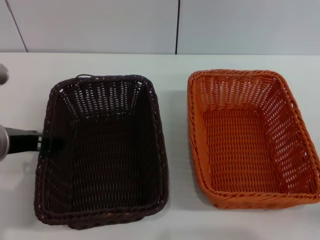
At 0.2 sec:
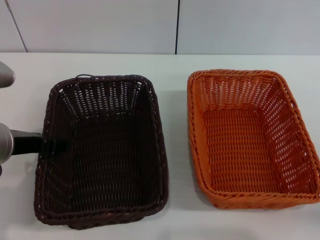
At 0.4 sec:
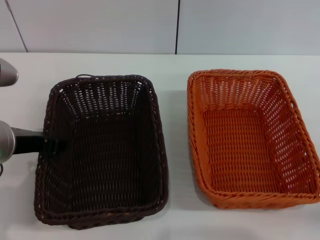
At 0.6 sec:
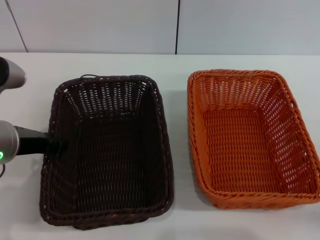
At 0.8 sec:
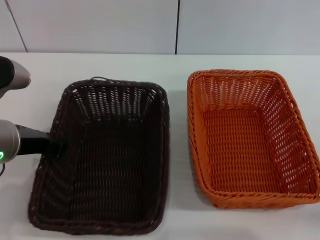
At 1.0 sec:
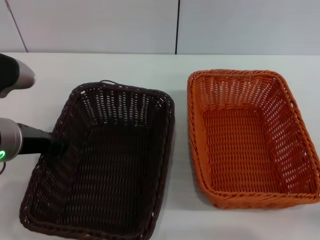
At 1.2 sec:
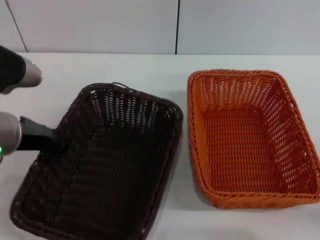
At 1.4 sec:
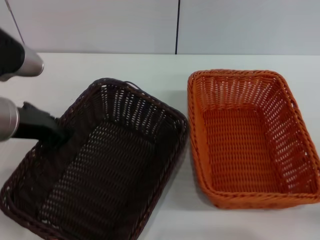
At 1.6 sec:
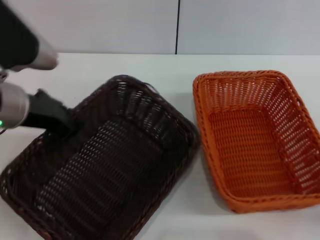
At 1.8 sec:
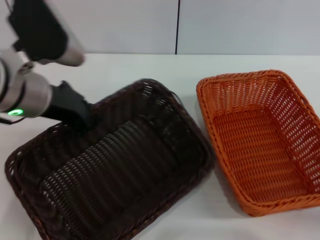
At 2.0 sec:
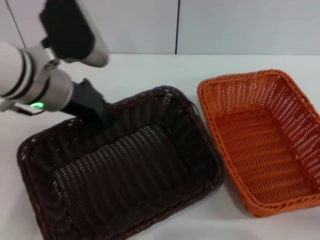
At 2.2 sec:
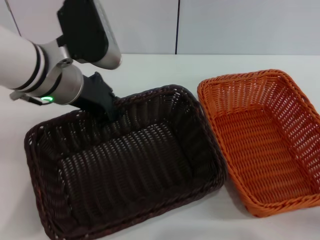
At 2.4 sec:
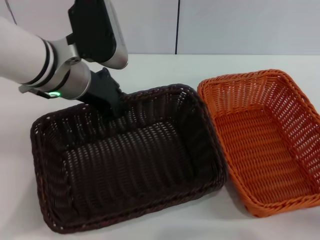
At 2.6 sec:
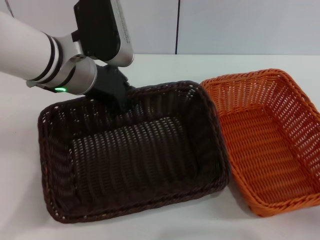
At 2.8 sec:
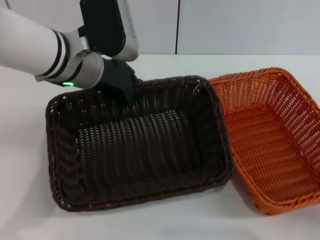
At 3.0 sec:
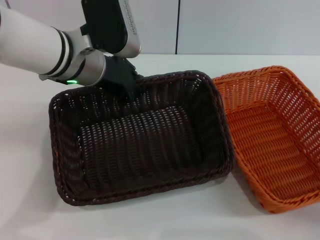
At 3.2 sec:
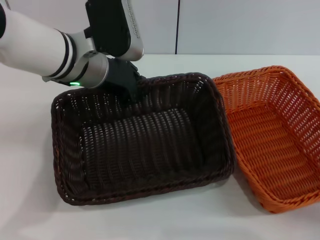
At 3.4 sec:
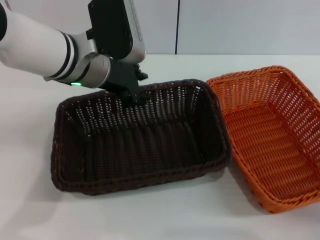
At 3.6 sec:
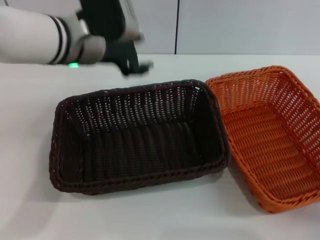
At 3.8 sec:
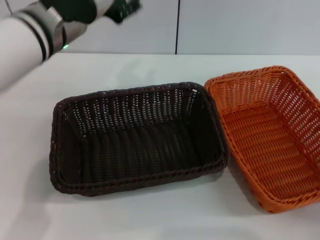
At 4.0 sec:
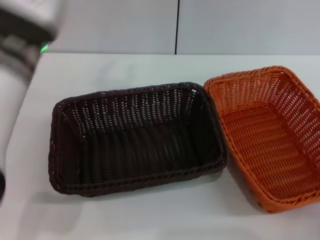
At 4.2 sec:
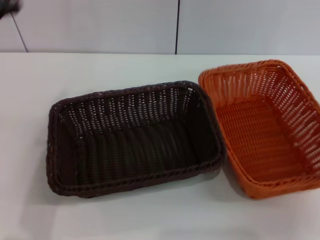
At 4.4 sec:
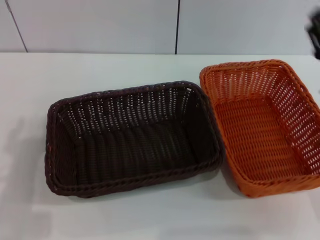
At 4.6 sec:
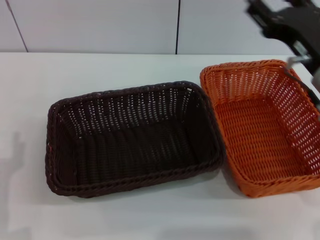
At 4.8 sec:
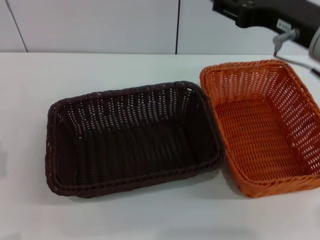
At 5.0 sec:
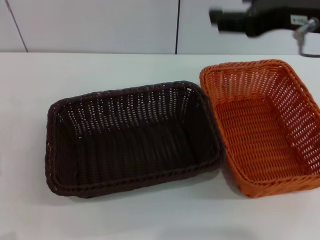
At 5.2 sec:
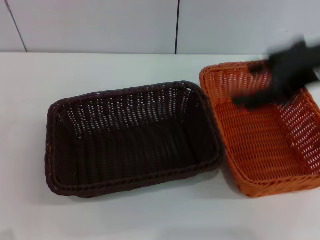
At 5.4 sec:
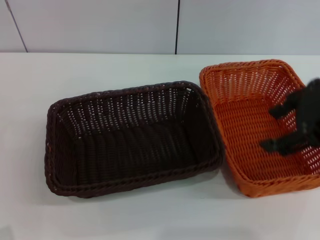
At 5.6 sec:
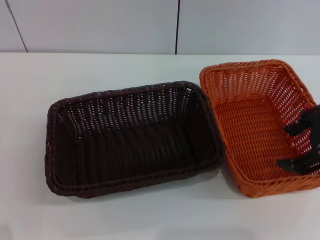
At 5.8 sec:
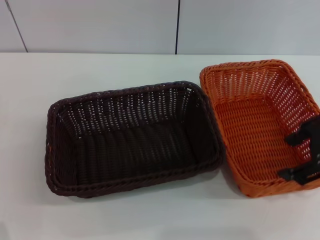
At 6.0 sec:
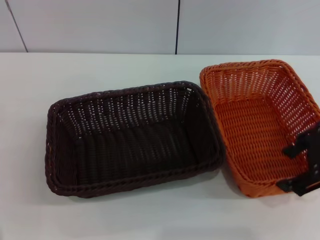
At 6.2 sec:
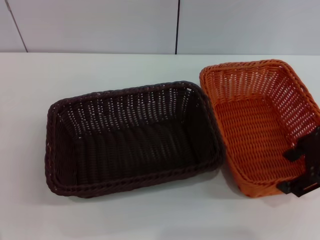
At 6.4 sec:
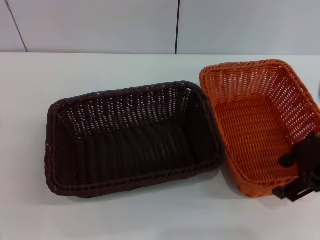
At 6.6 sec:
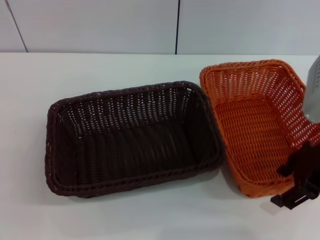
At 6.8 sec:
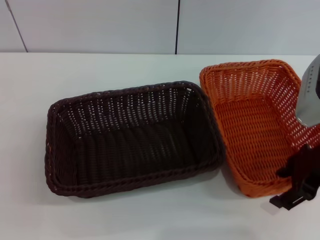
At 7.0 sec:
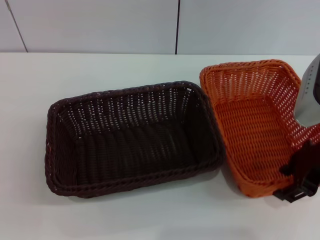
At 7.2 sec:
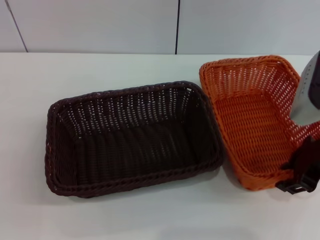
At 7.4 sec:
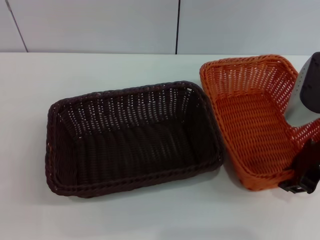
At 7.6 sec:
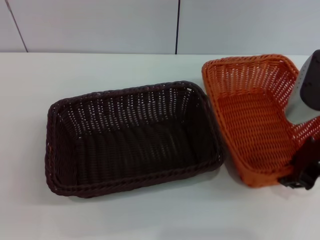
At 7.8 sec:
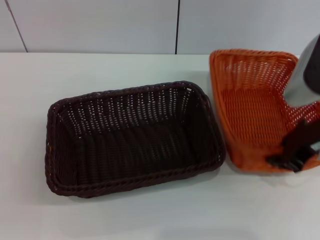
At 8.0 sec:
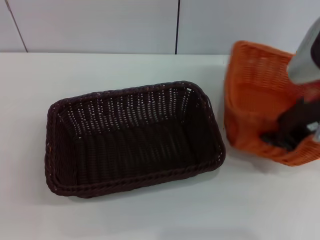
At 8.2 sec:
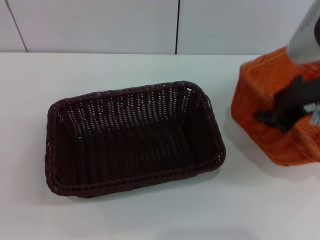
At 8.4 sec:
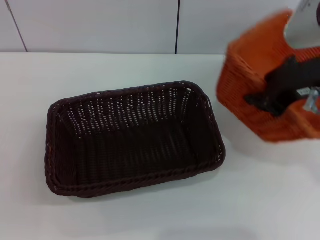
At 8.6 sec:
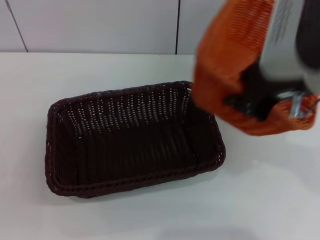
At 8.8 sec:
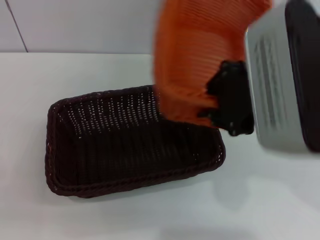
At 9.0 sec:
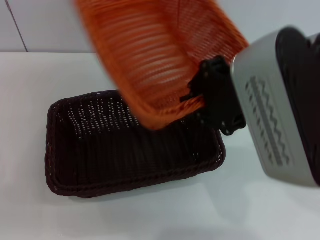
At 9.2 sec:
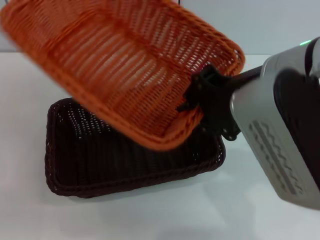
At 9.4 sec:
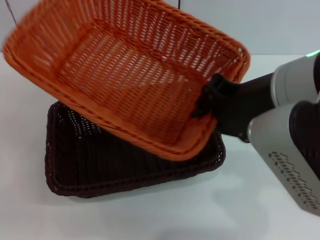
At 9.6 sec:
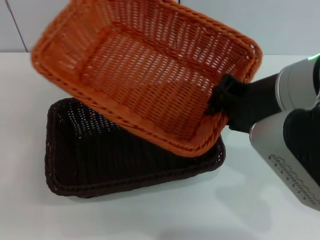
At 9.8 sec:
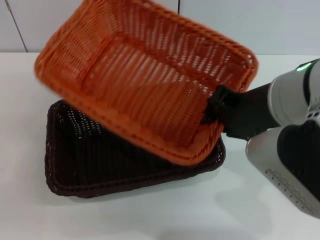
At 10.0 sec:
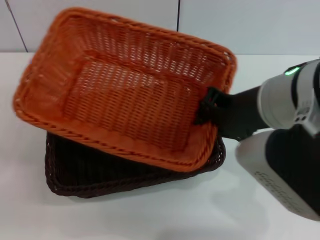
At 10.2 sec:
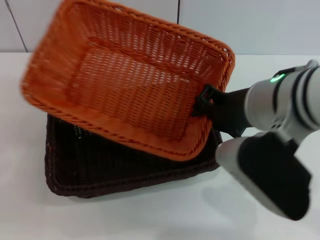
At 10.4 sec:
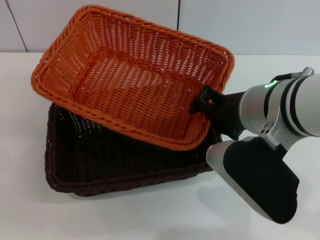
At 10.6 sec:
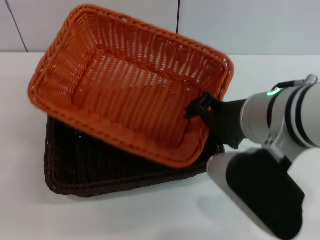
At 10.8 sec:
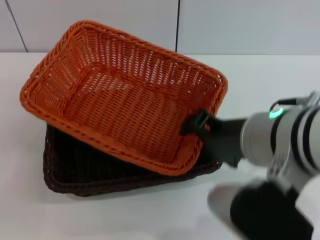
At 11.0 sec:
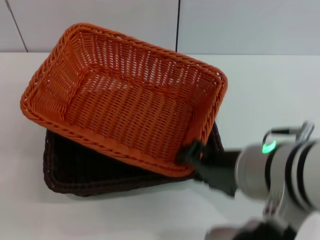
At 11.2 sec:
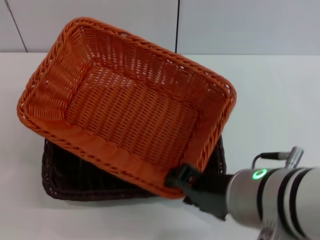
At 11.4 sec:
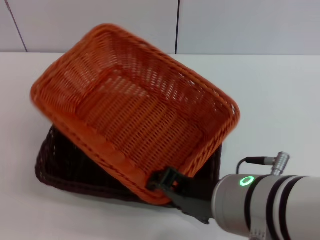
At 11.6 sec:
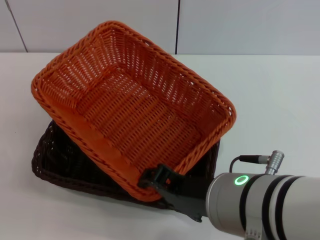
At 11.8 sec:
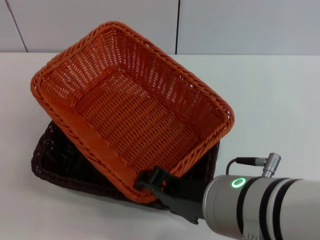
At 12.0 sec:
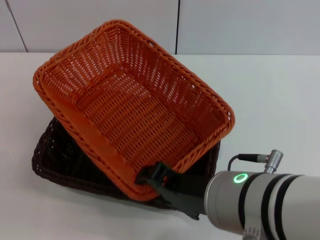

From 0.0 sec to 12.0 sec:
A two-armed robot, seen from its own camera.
Step, from 1.8 sec to 3.2 sec: Place the dark basket in the center of view with the left gripper.
Step, from 3.4 sec to 8.2 sec: Pick up the light basket with the right gripper.
From 0.0 sec to 1.6 sec: The left gripper ends up roughly 5 cm from where it was, and closes its fingers.
From 1.6 sec to 3.0 sec: The left gripper travels forward and to the right by about 10 cm.
From 3.0 sec to 4.4 sec: The left gripper goes roughly 25 cm backward, to the left and downward, and opens. Meanwhile the right gripper heads upward, to the left and forward, covering about 15 cm.
From 4.4 sec to 6.0 sec: The right gripper is displaced upward by some 10 cm.
From 6.0 sec to 7.6 sec: The right gripper shifts about 5 cm downward, and closes up.
From 7.6 sec to 9.0 sec: The right gripper is displaced to the left and upward by approximately 15 cm.
From 9.0 sec to 10.4 sec: The right gripper travels downward by approximately 5 cm.
From 10.4 sec to 12.0 sec: The right gripper heads backward, covering some 10 cm, and opens up.

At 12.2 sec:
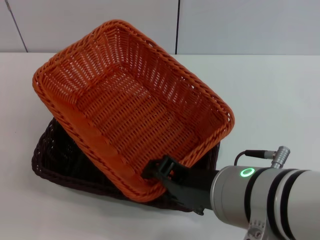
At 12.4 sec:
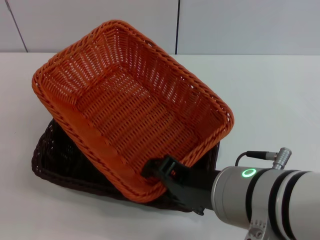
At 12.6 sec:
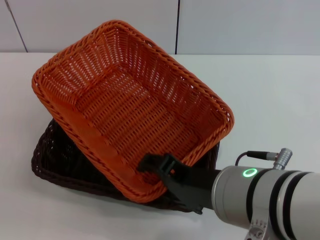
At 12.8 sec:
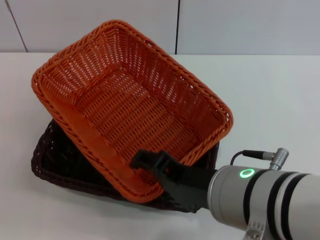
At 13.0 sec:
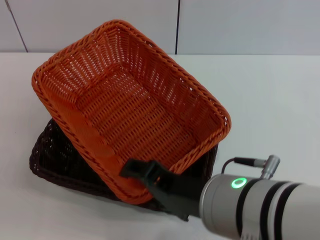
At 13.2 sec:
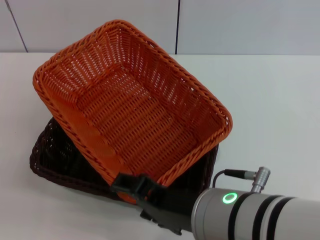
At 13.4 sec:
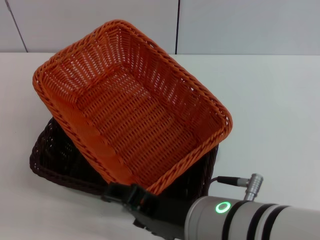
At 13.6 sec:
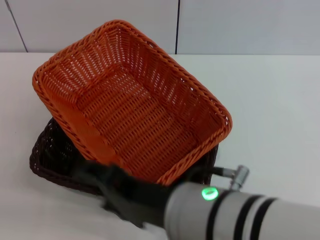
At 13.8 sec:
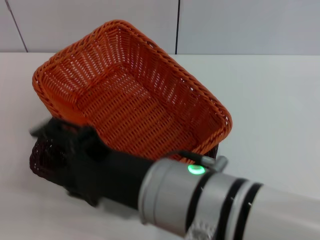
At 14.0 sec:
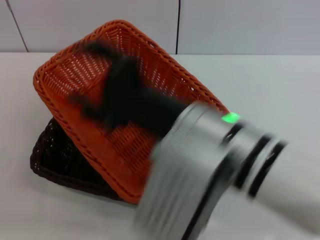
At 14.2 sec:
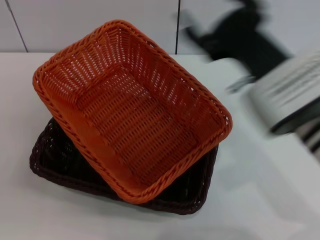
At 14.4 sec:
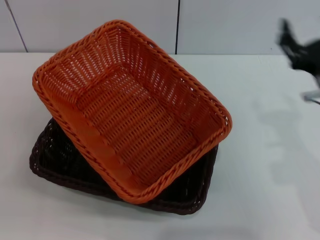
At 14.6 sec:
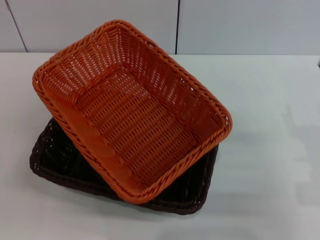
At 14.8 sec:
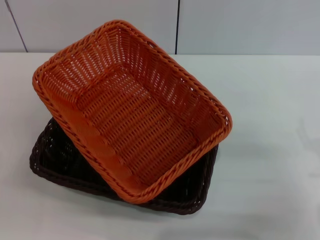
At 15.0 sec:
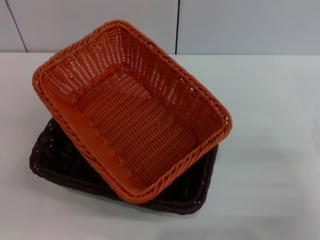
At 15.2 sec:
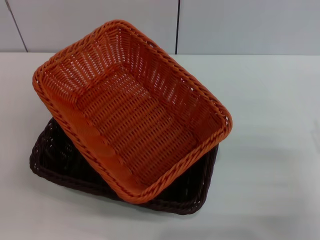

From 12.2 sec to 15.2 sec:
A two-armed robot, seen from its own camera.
From 12.2 sec to 13.8 sec: The right gripper shifts by about 5 cm, and opens.
From 13.8 sec to 15.2 sec: The right gripper moves to the right and downward, some 30 cm.
